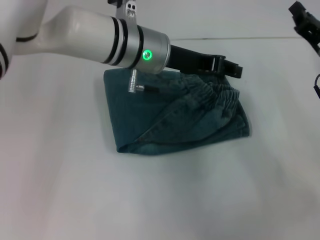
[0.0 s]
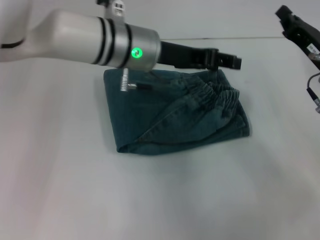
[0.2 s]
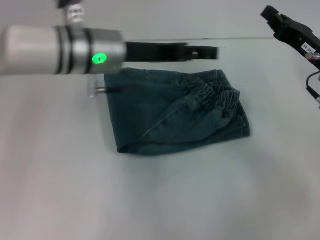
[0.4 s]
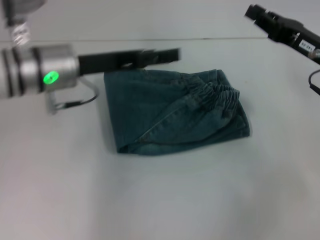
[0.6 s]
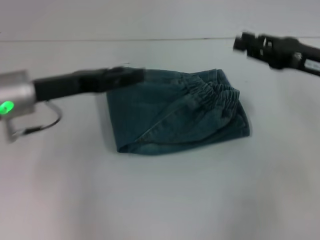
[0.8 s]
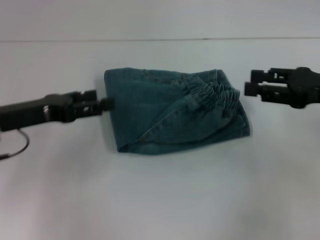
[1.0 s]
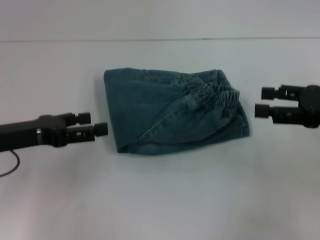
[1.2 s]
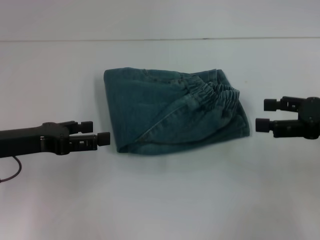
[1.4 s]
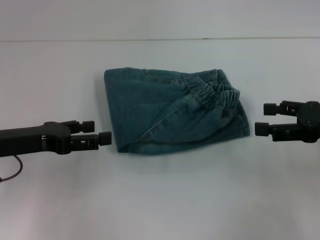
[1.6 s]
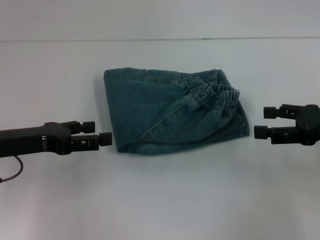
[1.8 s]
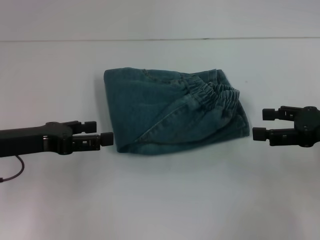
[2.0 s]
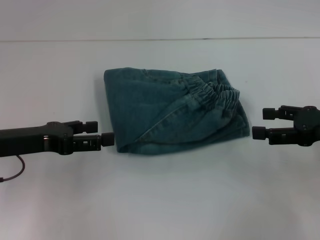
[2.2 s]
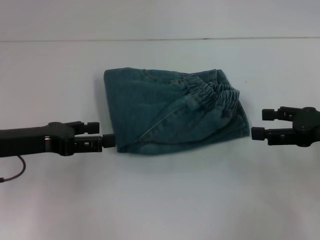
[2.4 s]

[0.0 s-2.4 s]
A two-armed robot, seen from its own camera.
0.0 to 1.2 s: The right gripper travels backward and upward by roughly 10 cm, and opens its fingers, while the left gripper travels to the left and backward by approximately 25 cm, and opens up.
1.2 to 2.4 s: The grippers stay close to where they were, moving slightly.
